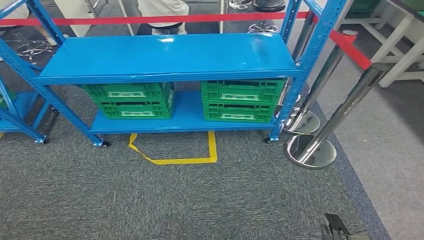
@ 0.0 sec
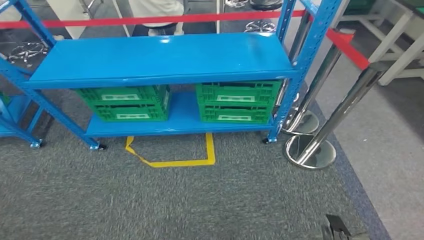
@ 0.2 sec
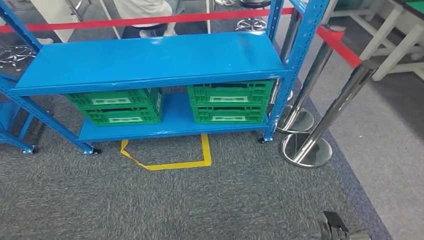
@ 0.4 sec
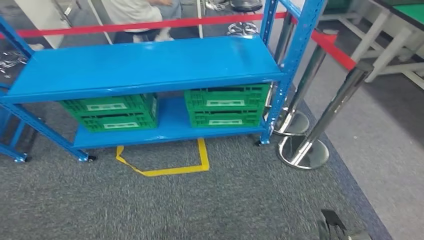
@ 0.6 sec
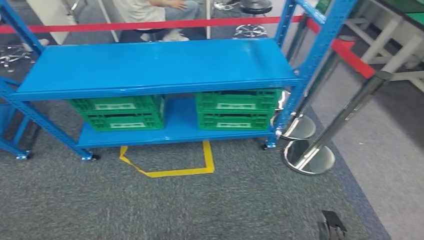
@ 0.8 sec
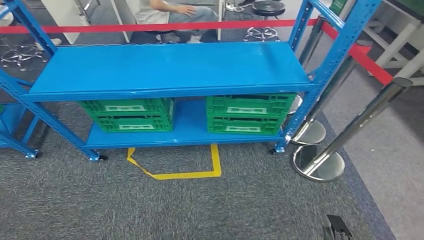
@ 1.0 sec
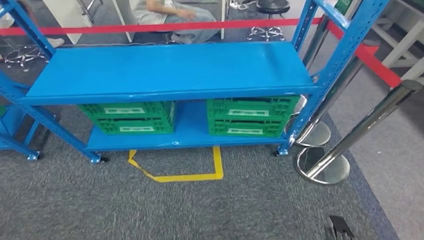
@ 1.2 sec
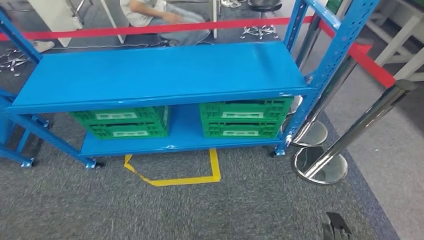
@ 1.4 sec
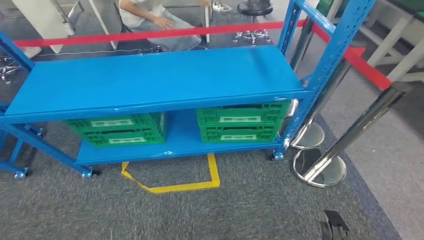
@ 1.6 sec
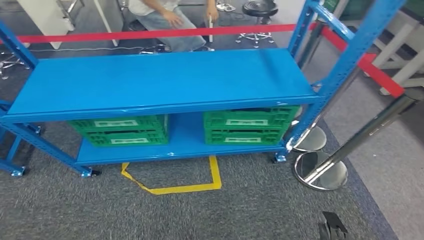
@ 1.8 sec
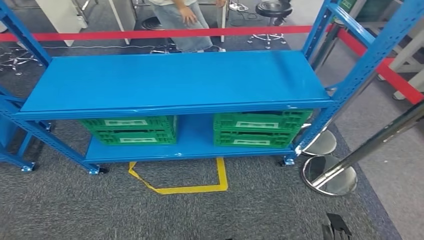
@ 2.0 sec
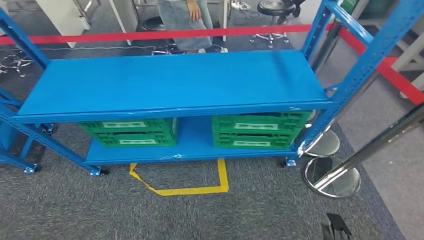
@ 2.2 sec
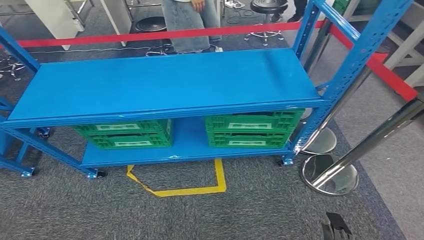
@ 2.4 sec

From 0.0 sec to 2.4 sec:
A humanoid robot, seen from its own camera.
Step, from 0.0 sec to 2.4 sec: Return to the initial position at the workbench.
